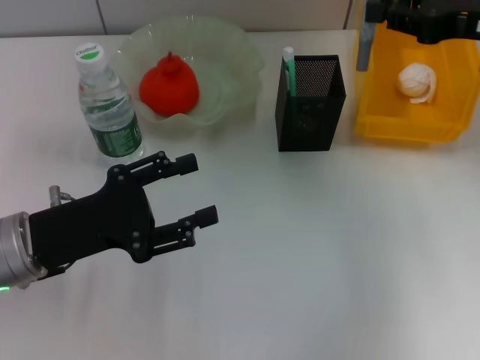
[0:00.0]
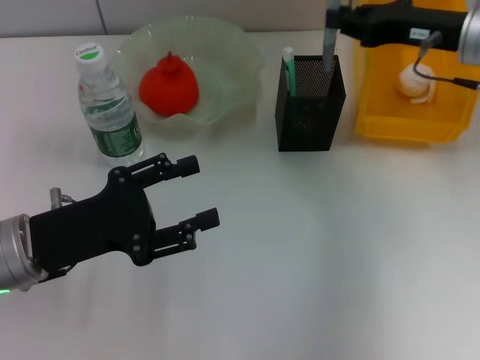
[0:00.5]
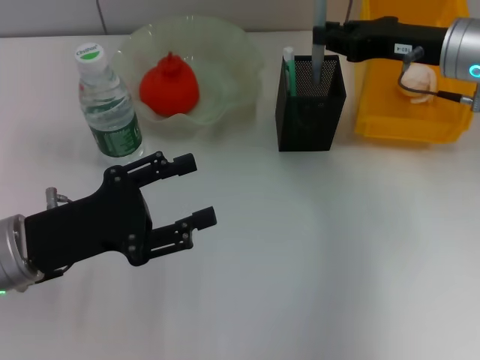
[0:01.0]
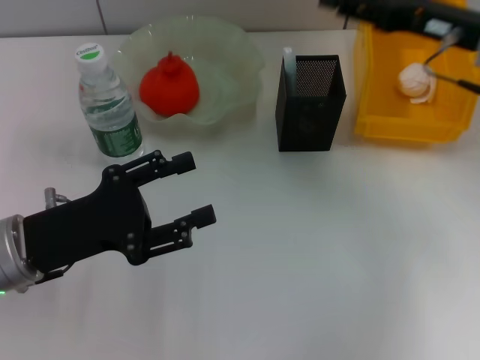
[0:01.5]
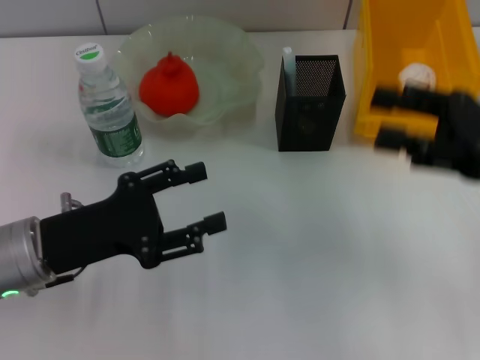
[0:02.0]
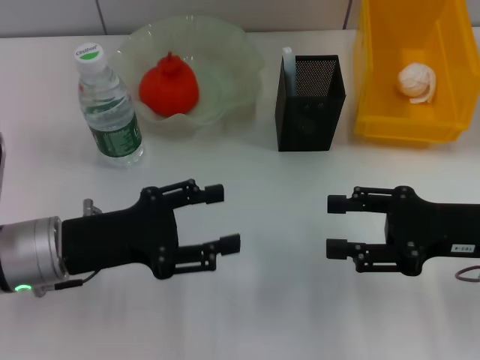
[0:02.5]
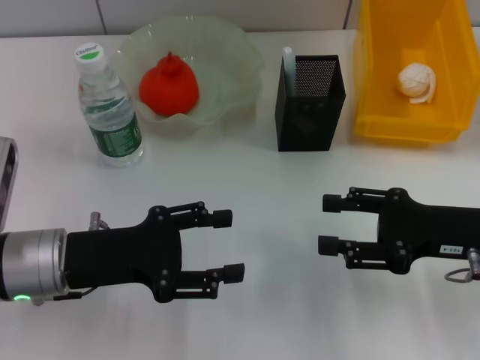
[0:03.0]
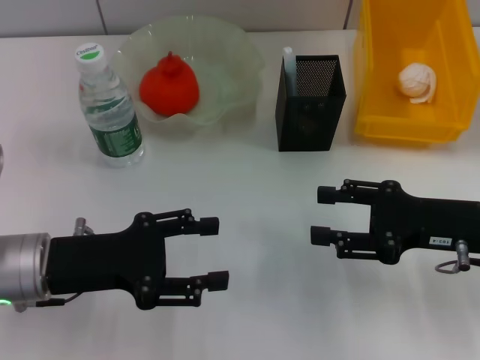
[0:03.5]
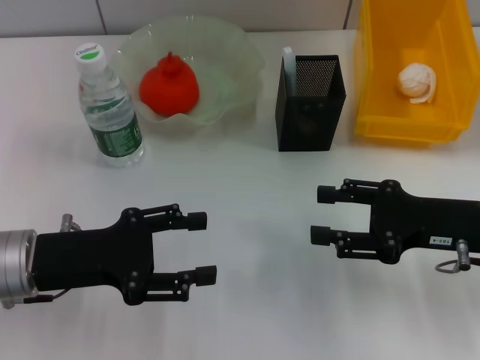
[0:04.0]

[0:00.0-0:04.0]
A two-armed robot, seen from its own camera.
0:00.0 to 0:02.0: The right gripper is displaced backward and downward by roughly 10 cm, and opens up.
0:02.0 to 0:04.0: The right gripper heads downward, covering about 5 cm.
